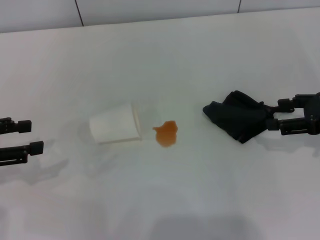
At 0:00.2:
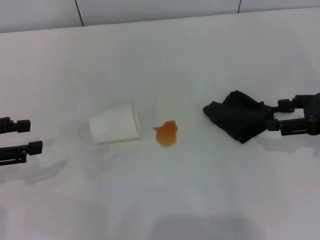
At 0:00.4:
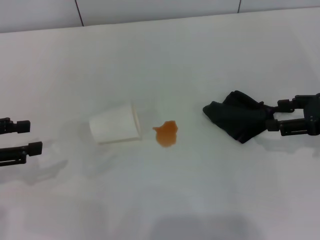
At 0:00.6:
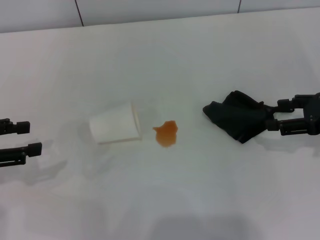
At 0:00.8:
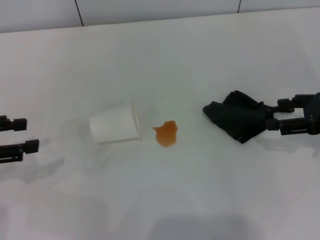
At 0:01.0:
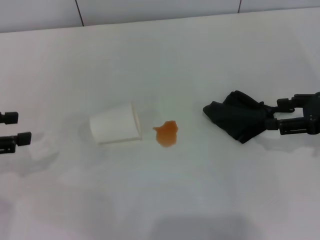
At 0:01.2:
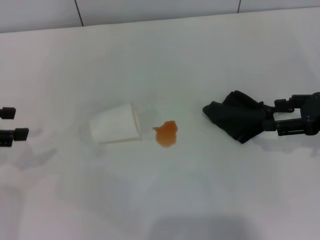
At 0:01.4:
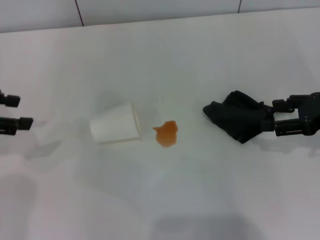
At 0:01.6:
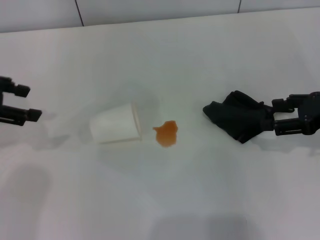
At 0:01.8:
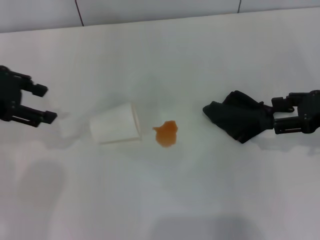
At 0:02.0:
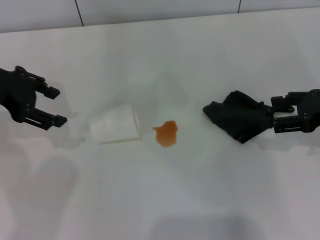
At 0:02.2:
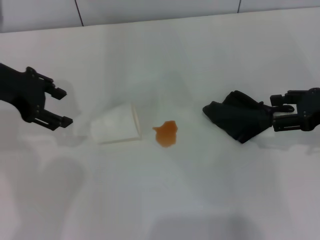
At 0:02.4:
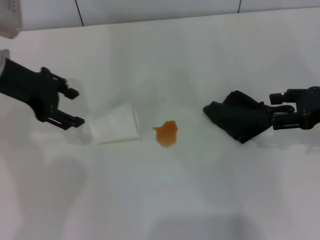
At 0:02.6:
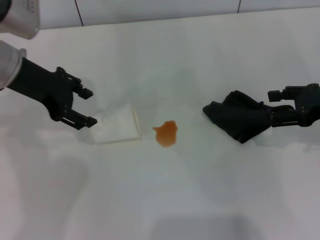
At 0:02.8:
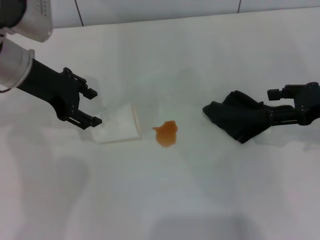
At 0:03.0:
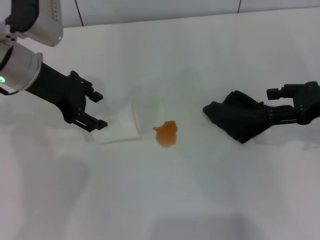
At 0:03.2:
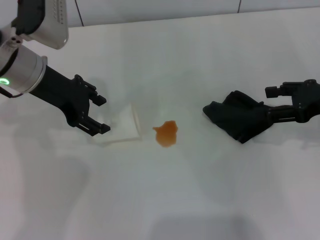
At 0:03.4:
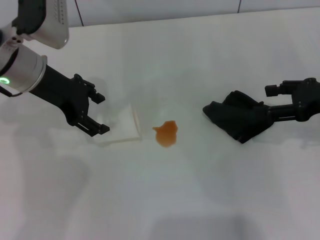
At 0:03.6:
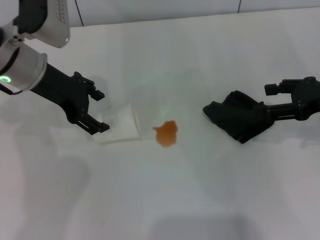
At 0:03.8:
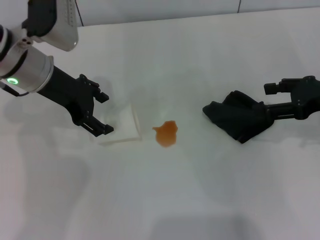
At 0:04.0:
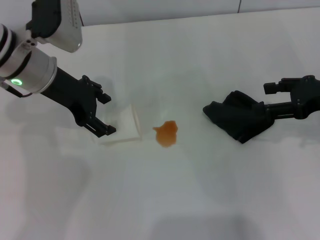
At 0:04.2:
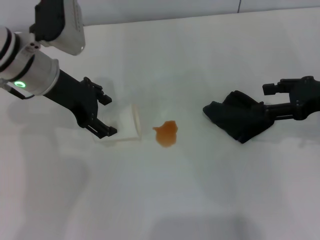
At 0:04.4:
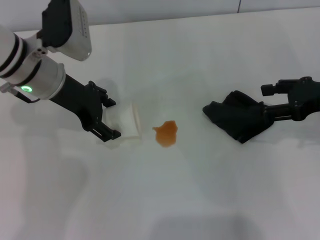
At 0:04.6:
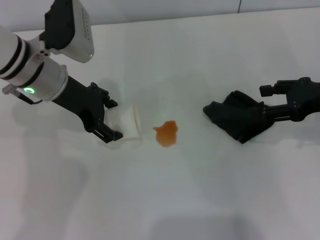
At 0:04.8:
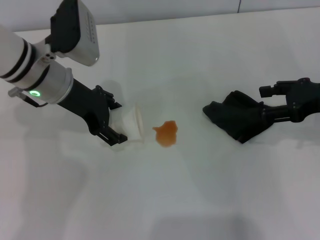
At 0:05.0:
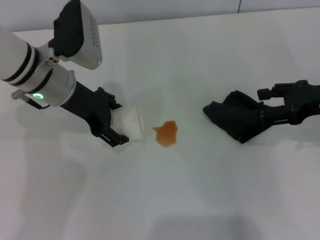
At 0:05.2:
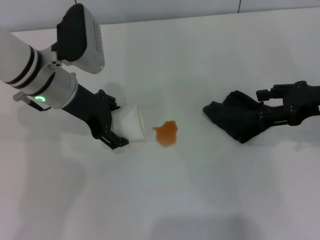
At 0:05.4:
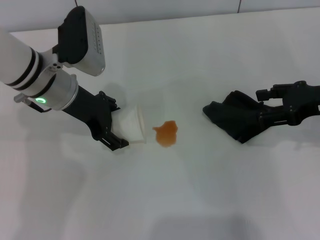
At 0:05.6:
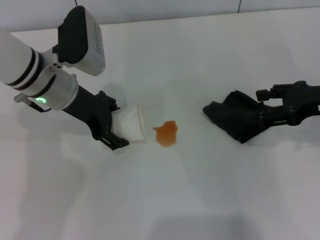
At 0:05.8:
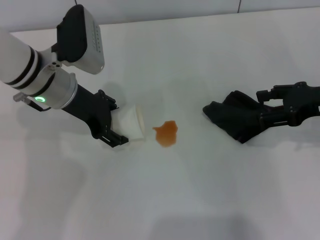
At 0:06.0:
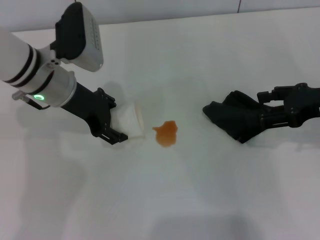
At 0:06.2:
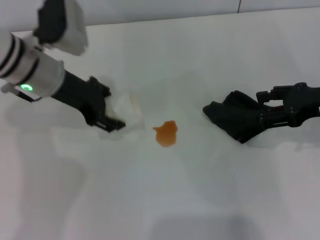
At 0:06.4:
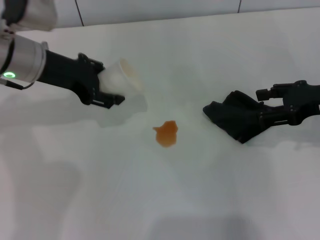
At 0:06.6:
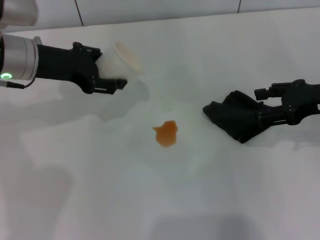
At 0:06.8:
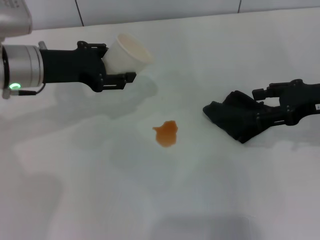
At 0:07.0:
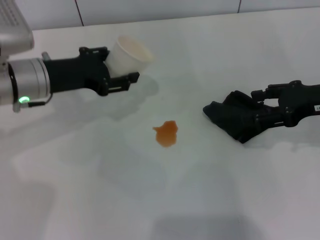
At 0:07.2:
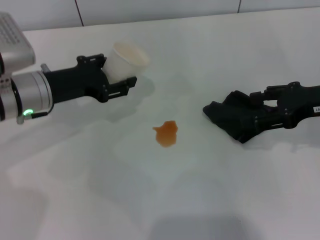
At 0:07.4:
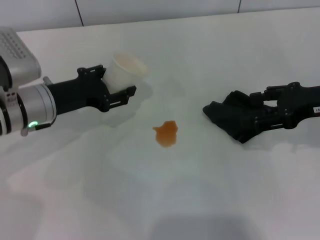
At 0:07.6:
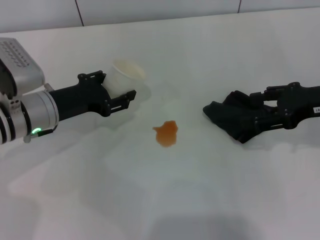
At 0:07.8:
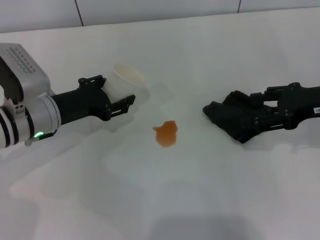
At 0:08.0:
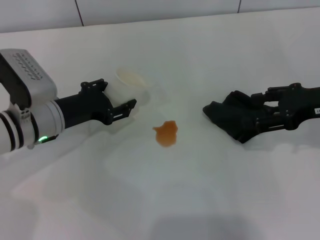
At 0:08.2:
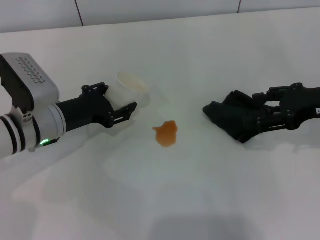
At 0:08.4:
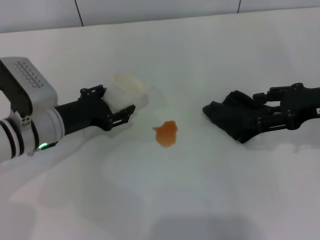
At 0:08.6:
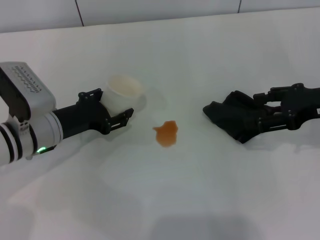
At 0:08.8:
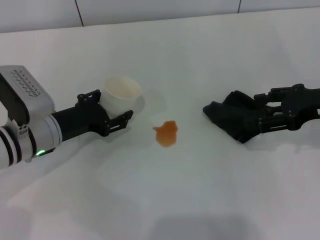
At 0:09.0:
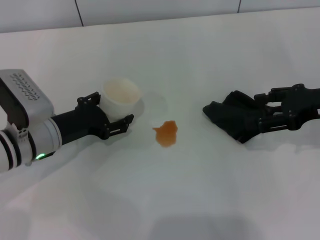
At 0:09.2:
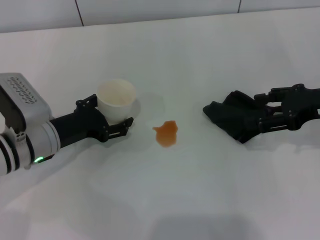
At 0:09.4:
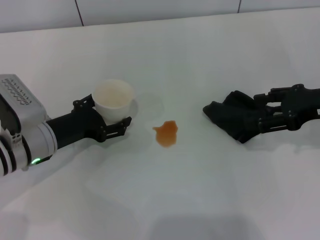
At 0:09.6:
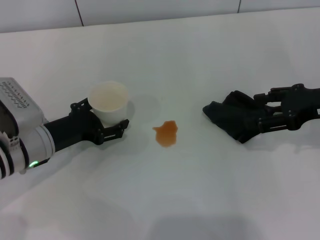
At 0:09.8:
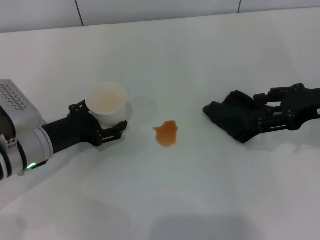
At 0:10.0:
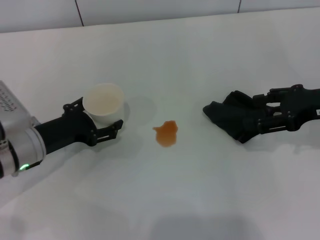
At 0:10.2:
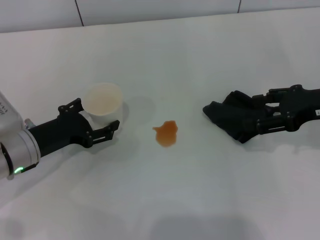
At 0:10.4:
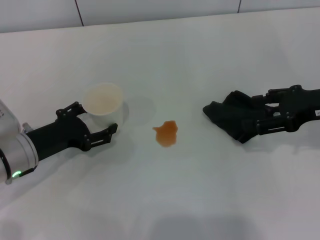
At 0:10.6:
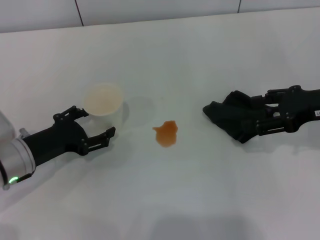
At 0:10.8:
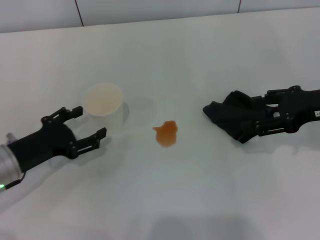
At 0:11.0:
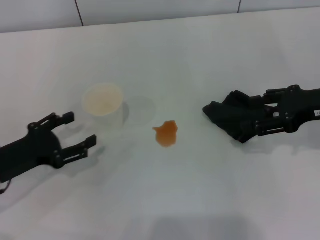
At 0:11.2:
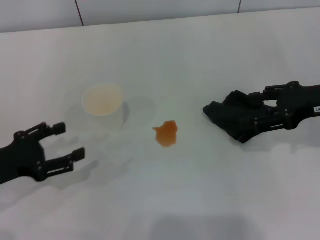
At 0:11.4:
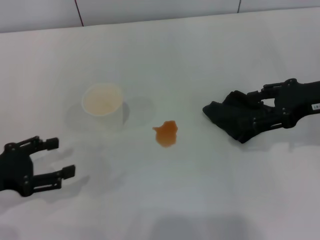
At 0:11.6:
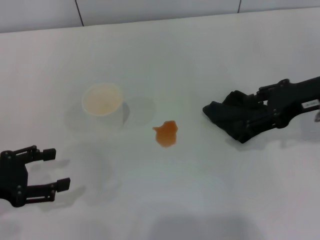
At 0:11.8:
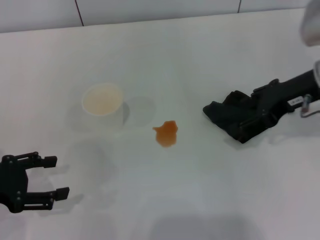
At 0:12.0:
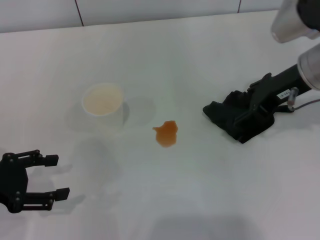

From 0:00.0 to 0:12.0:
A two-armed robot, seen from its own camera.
Step, from 0:00.0 to 0:05.6: Grasp the paper cup with the left gripper.
Step, from 0:06.0 to 0:10.4: Stand the paper cup upright with the left gripper.
From 0:00.0 to 0:01.6: The left gripper goes about 10 cm upward and forward.
From 0:01.6 to 0:03.0: The left gripper moves to the right, some 15 cm.
From 0:03.0 to 0:04.4: The left gripper opens its fingers.
From 0:04.4 to 0:06.0: The left gripper closes its fingers.
From 0:06.0 to 0:07.6: The left gripper goes approximately 10 cm downward and to the left, and closes its fingers.
From 0:07.6 to 0:09.0: The grippers stay close to where they were, moving slightly.
From 0:09.0 to 0:10.4: The left gripper opens its fingers.
From 0:10.4 to 0:12.0: The right gripper shifts about 10 cm to the left, while the left gripper heads to the left, upward and backward, covering about 10 cm.

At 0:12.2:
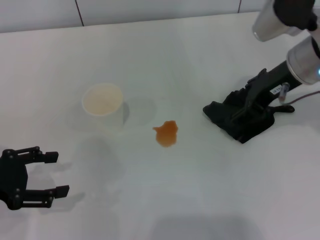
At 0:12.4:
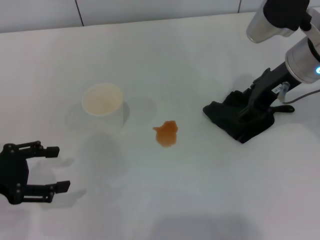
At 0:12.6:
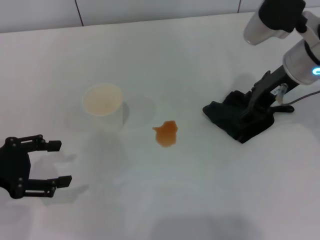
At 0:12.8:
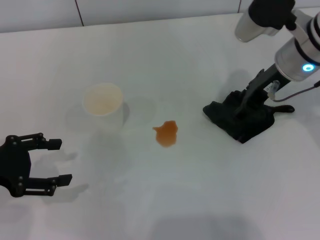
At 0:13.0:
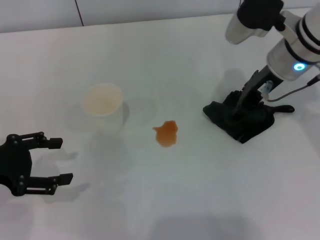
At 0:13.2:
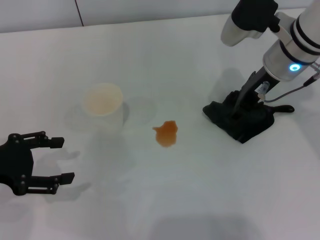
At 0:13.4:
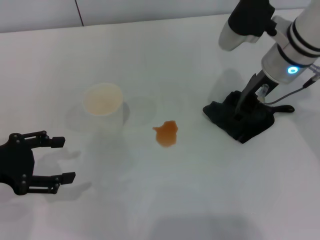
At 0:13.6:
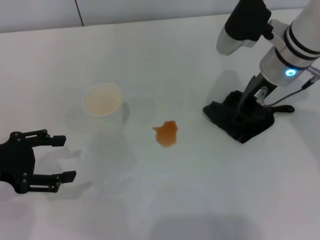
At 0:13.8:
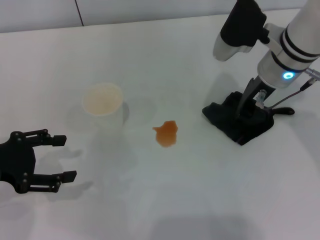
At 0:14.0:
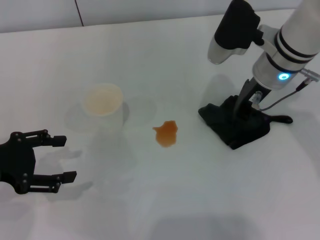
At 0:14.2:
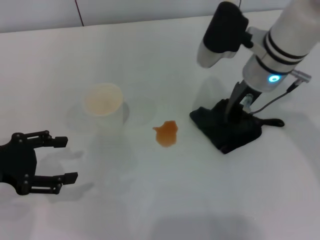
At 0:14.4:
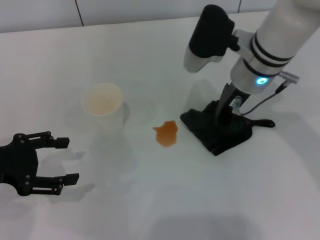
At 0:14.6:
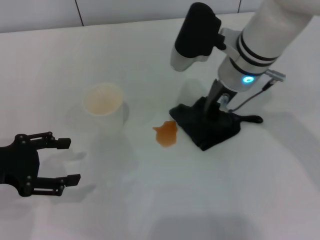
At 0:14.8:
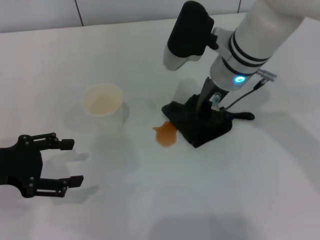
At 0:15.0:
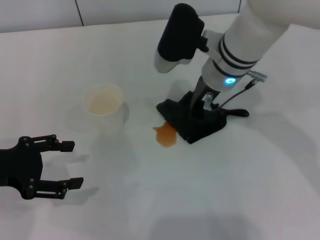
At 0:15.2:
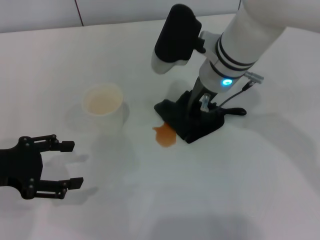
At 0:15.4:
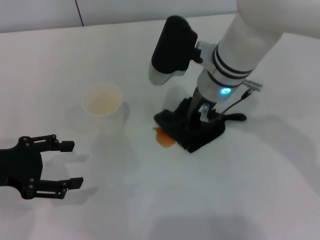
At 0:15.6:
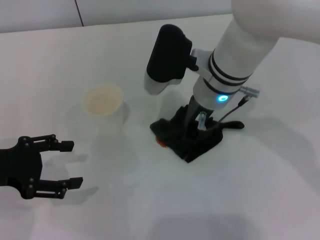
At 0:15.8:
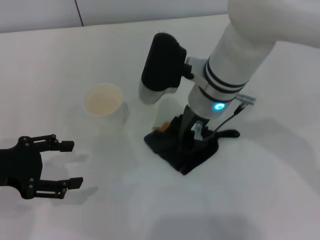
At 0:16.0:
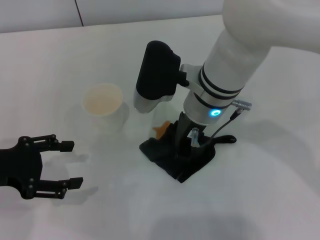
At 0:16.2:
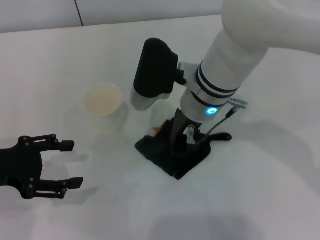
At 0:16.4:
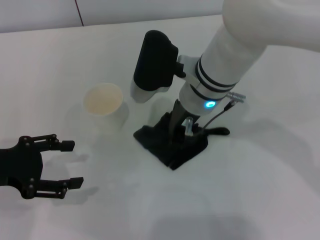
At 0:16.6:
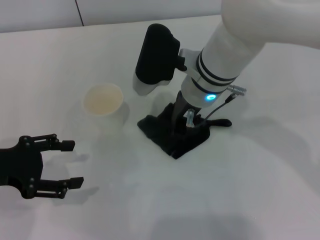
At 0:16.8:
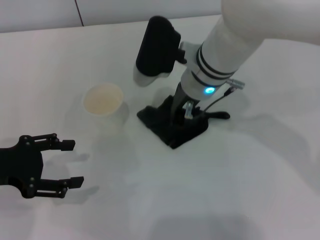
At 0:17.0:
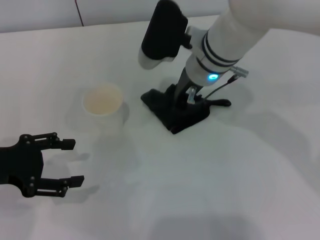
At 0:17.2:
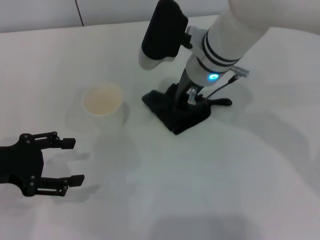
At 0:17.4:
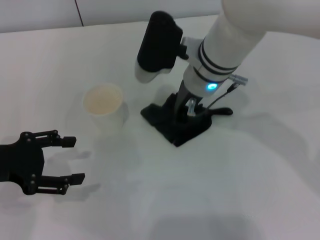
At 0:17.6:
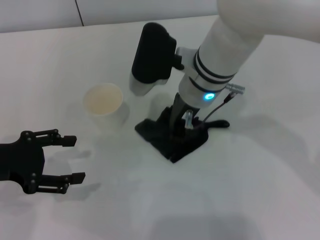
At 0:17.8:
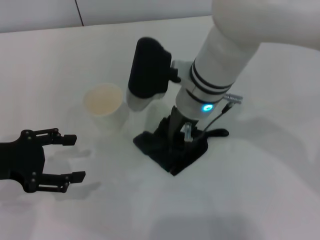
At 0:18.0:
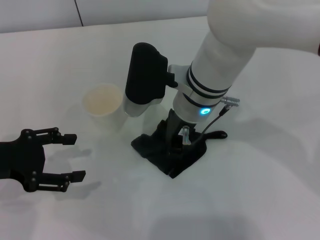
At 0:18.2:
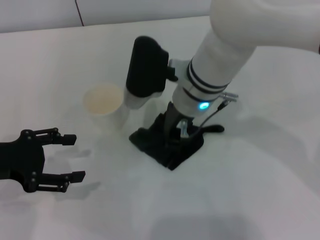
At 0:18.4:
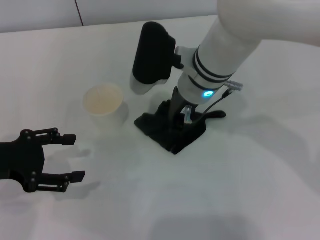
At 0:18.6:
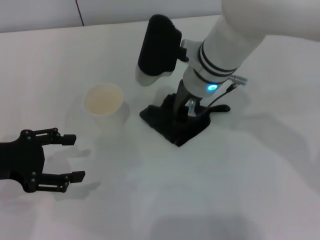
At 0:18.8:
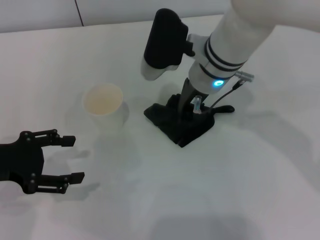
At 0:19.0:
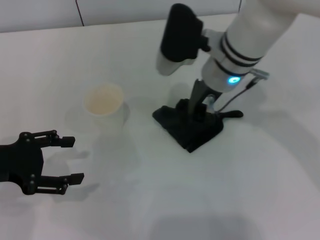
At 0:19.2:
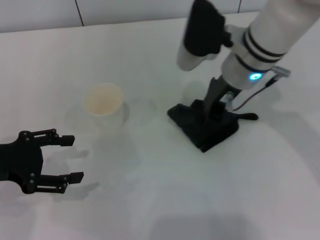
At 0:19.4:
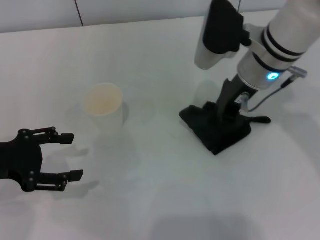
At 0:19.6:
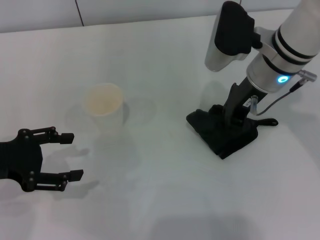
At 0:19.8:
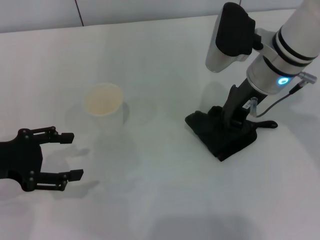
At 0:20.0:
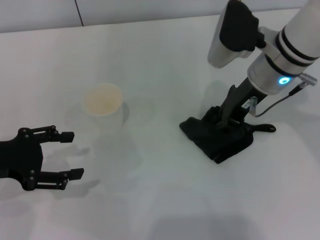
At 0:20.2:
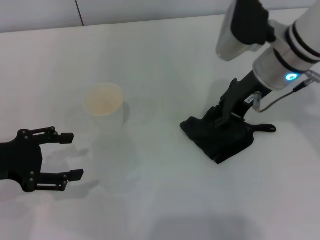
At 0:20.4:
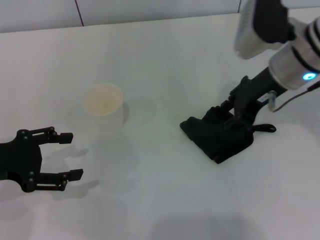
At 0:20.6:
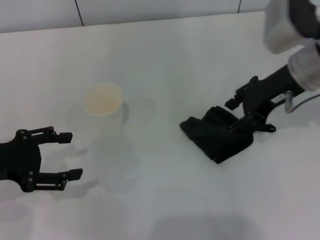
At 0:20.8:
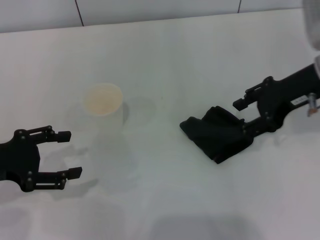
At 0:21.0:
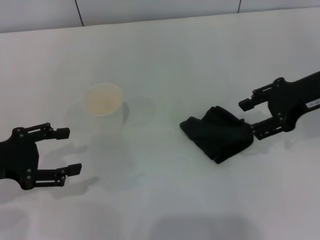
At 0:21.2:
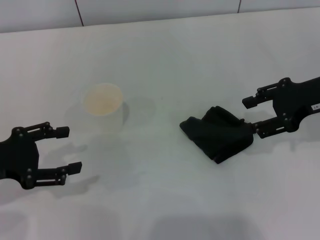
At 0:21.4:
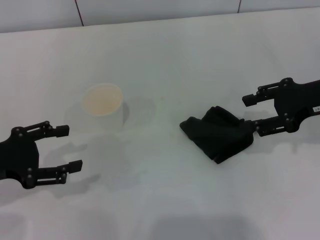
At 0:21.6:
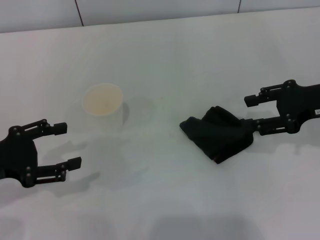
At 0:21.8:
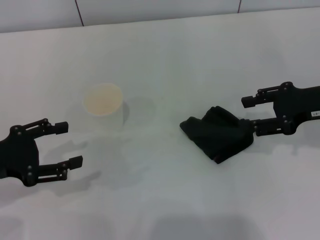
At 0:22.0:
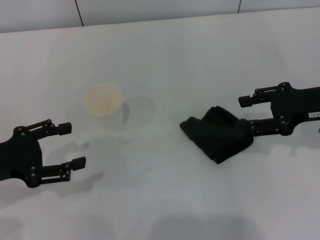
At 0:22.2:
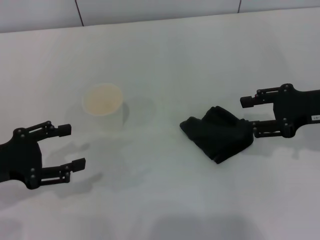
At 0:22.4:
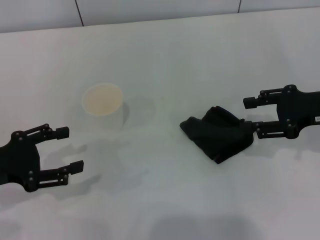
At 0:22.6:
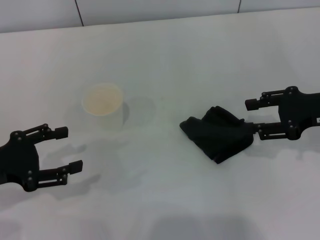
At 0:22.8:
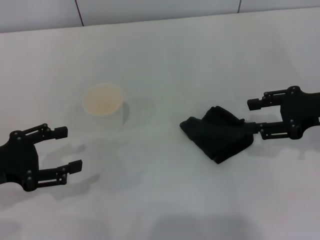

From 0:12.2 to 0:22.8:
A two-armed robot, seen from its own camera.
Step, from 0:13.8 to 0:19.6: Wipe the stains off the table with the right gripper.
Step, from 0:19.8 to 0:21.0: Place the rag on the table with the right gripper.
From 0:12.2 to 0:13.8: The right gripper moves roughly 5 cm, and closes its fingers.
From 0:13.8 to 0:15.2: The right gripper shifts some 10 cm to the left, and closes up.
From 0:15.2 to 0:18.2: There are only small adjustments of the grippers.
From 0:18.2 to 0:19.8: The right gripper moves to the right, some 10 cm.
From 0:19.8 to 0:21.2: The right gripper moves to the right and backward, about 15 cm, and opens up.
From 0:21.2 to 0:22.8: The grippers move only a little.
